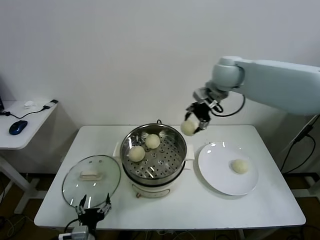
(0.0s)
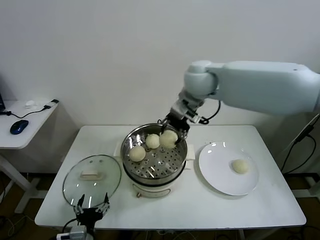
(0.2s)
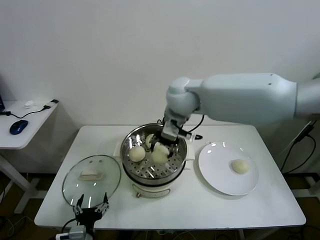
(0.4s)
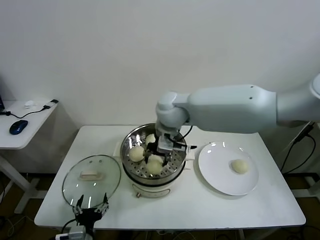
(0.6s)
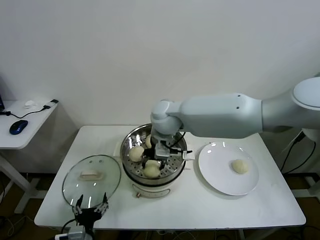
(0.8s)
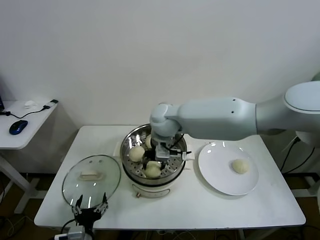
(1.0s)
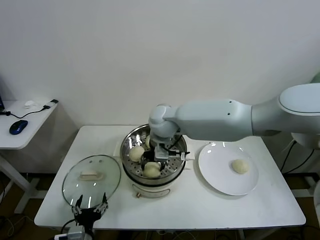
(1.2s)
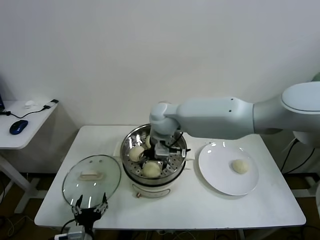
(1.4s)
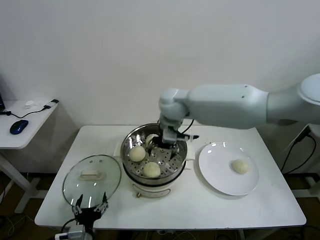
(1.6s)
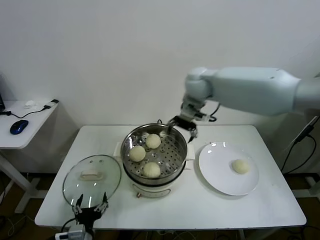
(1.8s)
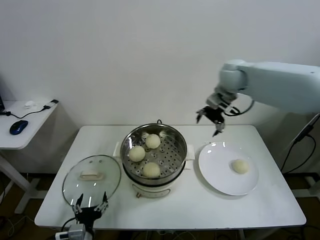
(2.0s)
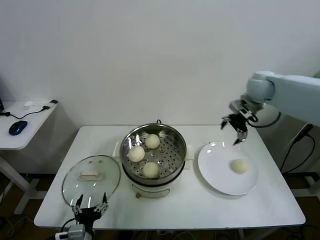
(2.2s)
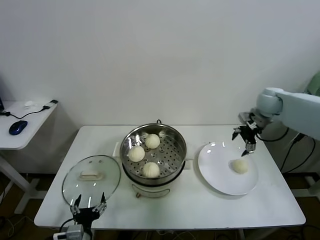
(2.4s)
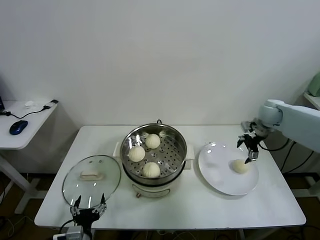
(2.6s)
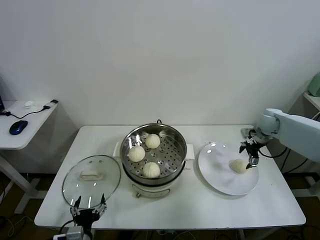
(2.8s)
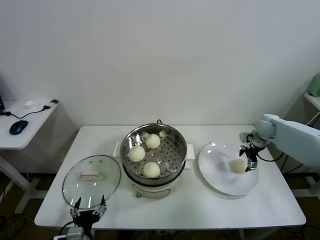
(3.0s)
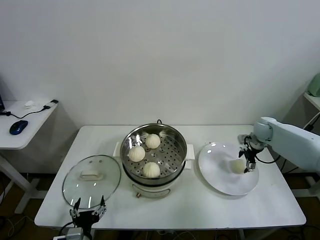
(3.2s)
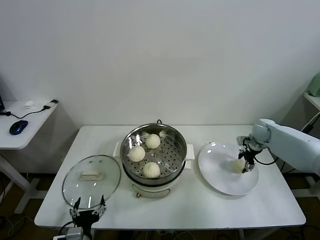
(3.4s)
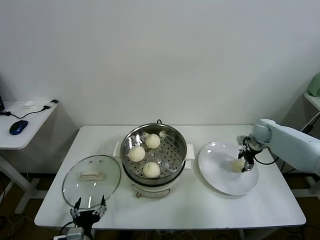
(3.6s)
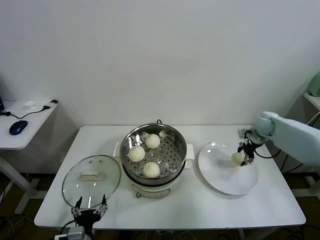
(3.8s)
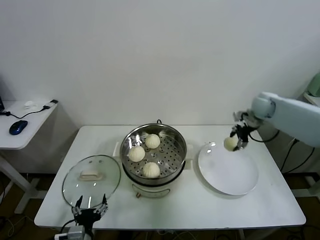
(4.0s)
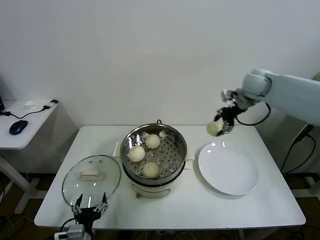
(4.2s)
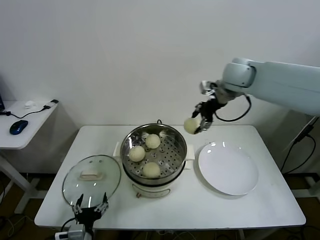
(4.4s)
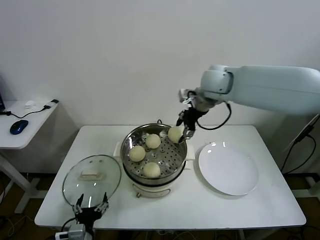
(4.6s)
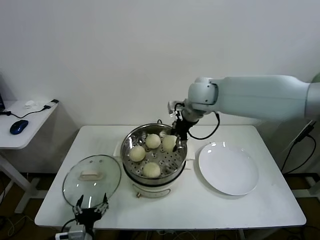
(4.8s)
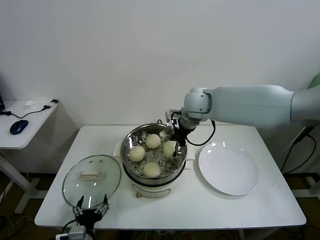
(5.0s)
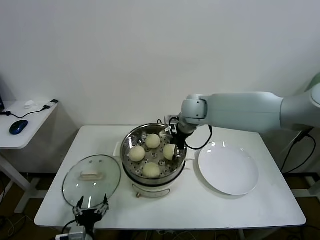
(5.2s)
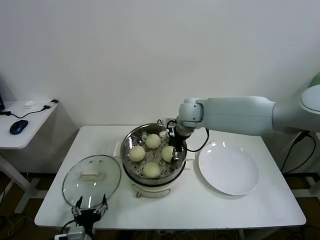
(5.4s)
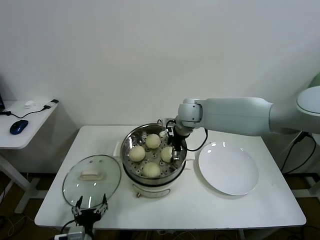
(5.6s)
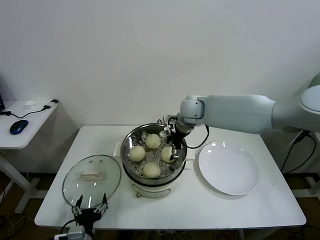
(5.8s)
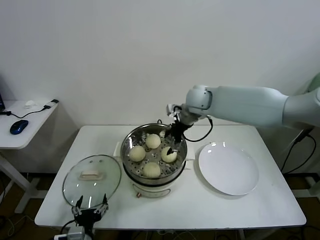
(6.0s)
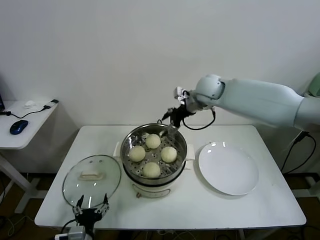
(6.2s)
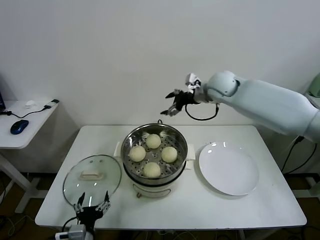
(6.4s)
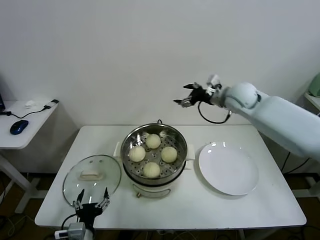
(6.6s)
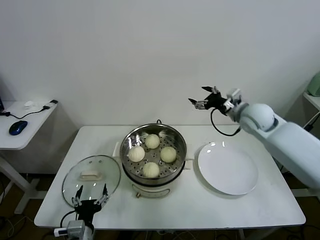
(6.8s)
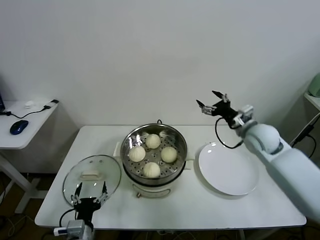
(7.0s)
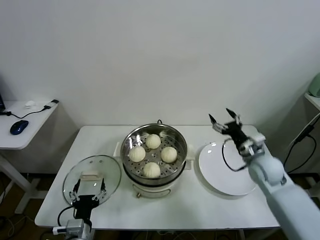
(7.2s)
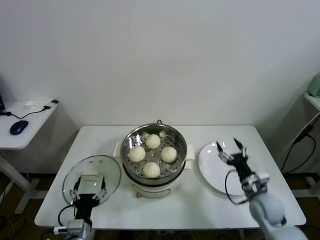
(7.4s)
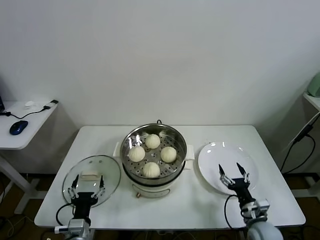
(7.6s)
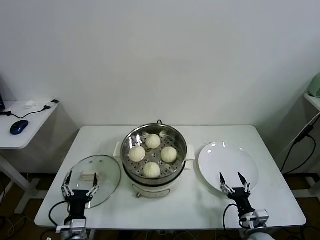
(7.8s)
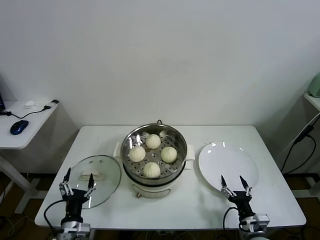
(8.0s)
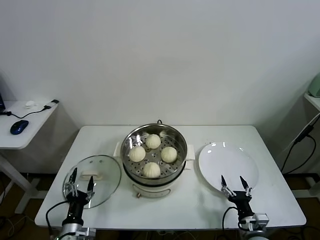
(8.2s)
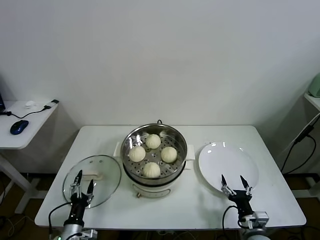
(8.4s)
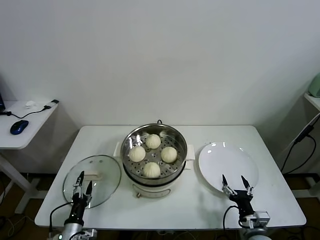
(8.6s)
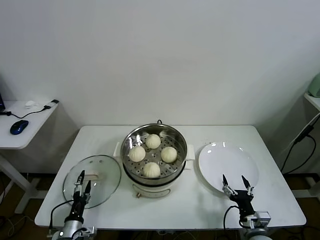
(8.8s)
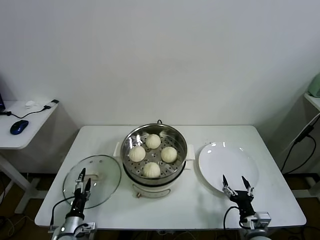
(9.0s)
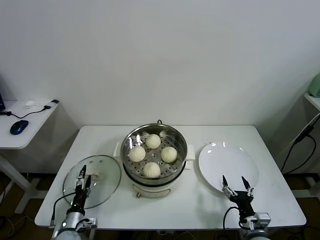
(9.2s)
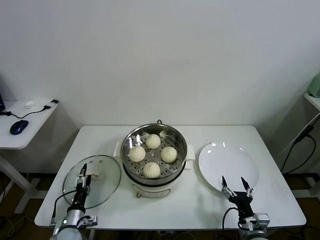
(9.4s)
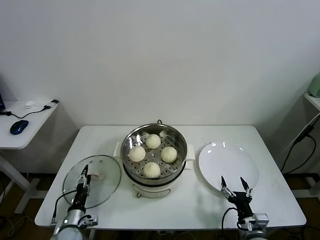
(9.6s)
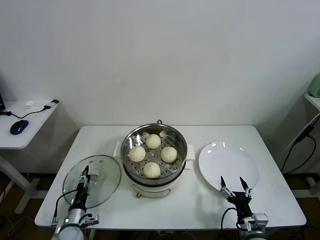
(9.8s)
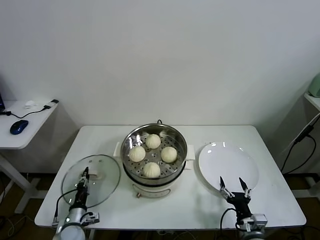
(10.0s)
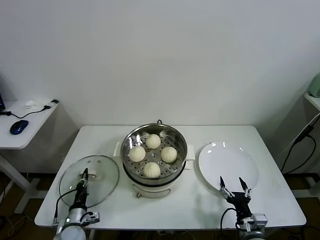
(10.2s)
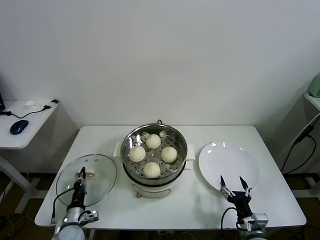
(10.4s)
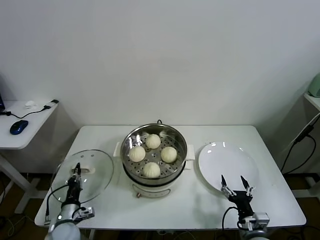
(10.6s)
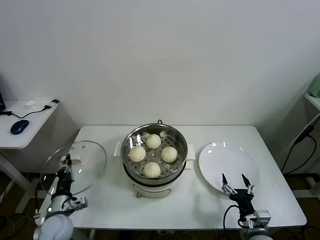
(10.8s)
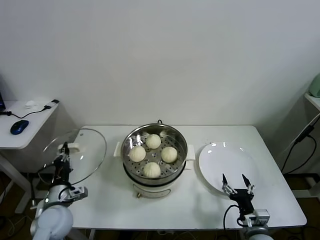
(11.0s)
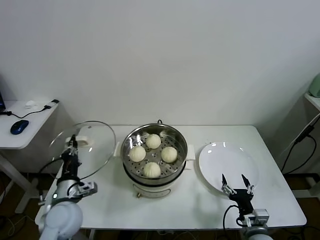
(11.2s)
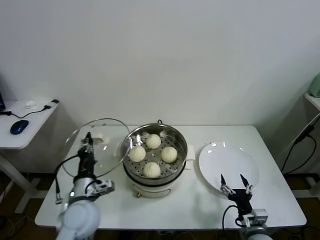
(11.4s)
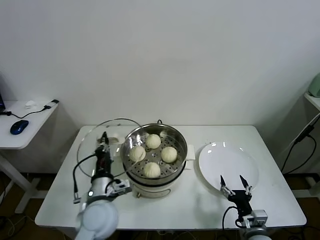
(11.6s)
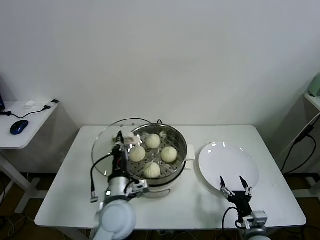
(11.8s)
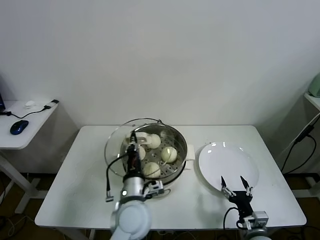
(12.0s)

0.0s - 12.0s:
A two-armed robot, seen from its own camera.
Task of the whole recording: take steamed baozi put them in steamer.
Step, 0.0s - 1.4s: Place the baozi on the steamer with right gripper.
Step, 1.6s - 3.6s: Grasp the baozi in the plate with right gripper.
Step, 3.8s - 5.8s: Place the baozi on the steamer with right gripper.
Step, 6.0s - 10.2s: Grasp the pot lid with left gripper.
0.0s - 1.6s: The right gripper goes some 15 cm to the left and downward, and opens its fingers.
1.6s - 3.0s: The right gripper travels to the right and downward by some 40 cm.
3.0s - 4.4s: The right gripper goes some 30 cm upward and to the left, and closes.
4.4s - 6.0s: The right gripper shifts about 15 cm to the left and downward, and opens up.
6.0s - 7.6s: The right gripper goes some 50 cm downward, backward and to the right.
7.6s - 9.0s: The left gripper shifts some 15 cm downward and to the left. The right gripper ends up some 5 cm from where it was.
9.0s - 10.4s: The left gripper closes its fingers.
10.4s - 12.0s: The left gripper shifts roughly 30 cm to the right and upward.

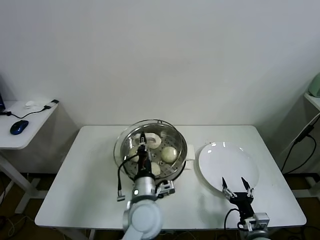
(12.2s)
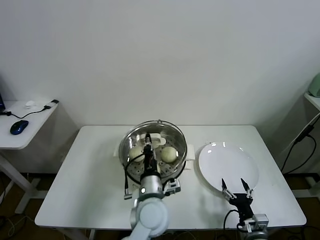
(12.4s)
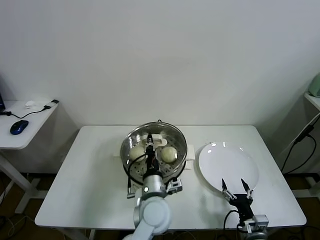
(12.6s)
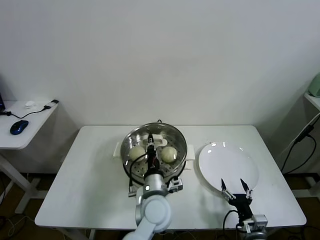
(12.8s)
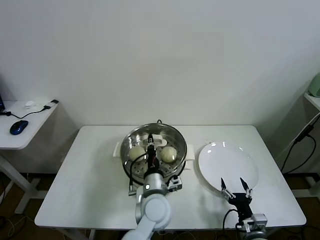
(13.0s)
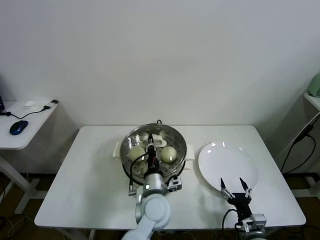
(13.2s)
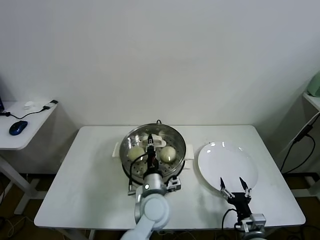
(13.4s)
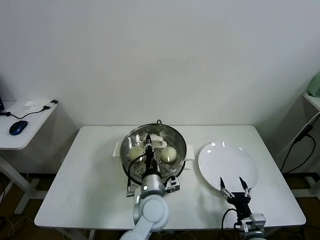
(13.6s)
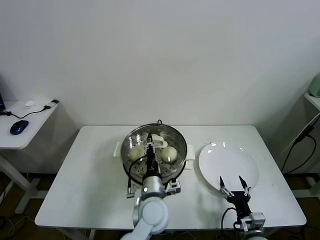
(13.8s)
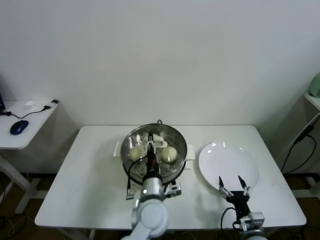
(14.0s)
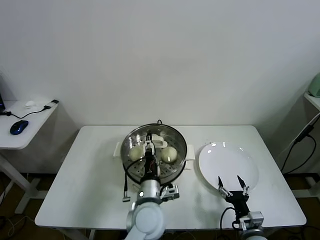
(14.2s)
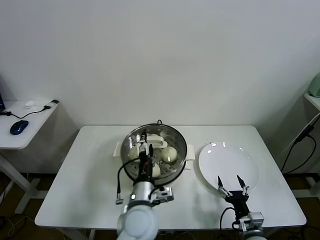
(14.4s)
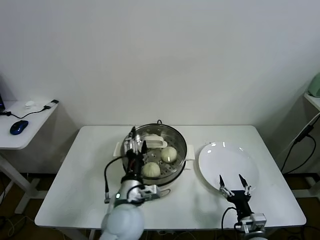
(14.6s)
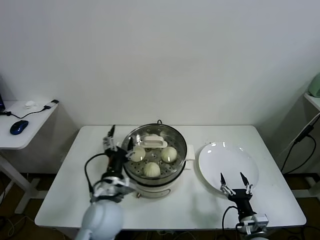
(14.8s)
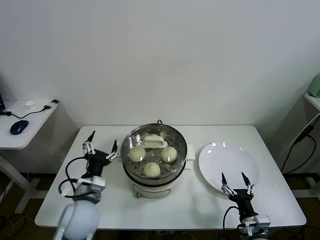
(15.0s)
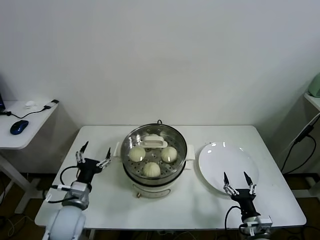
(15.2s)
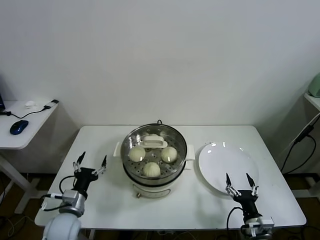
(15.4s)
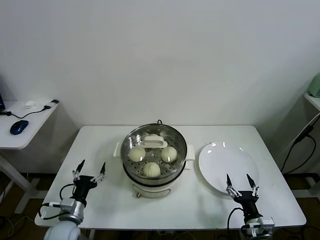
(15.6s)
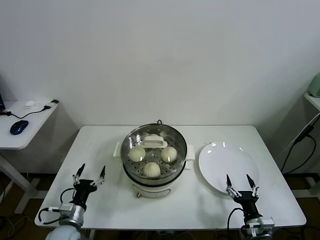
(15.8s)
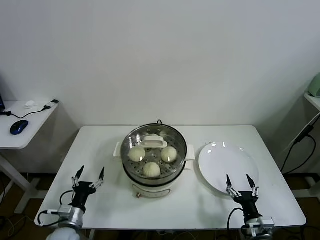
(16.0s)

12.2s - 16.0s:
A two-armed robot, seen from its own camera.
Task of the whole recording: take steamed baozi put them in steamer.
12.2s - 13.4s: The left gripper moves about 5 cm.
13.4s - 14.8s: The left gripper heads to the left and upward, covering approximately 10 cm, and opens.
14.8s - 16.0s: The left gripper is displaced to the left and downward by roughly 25 cm.

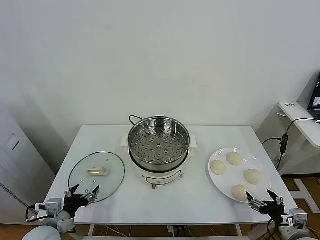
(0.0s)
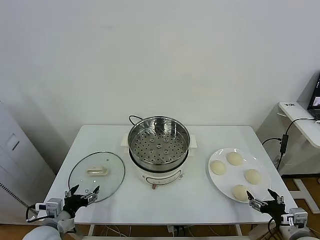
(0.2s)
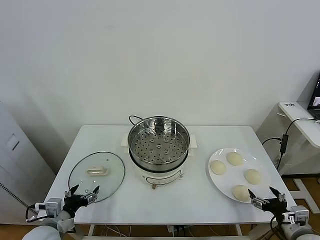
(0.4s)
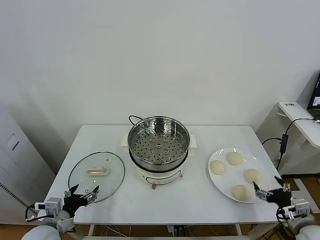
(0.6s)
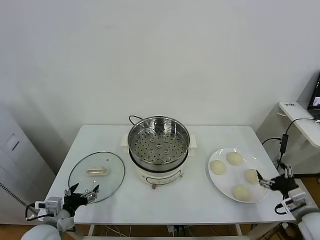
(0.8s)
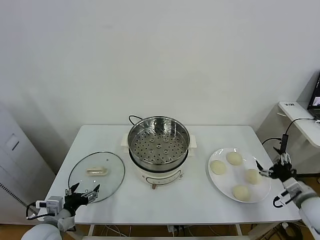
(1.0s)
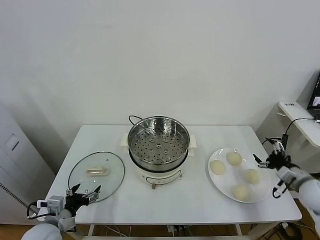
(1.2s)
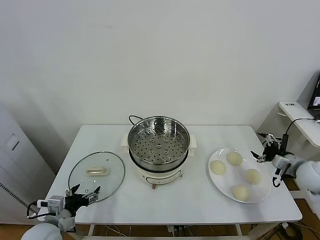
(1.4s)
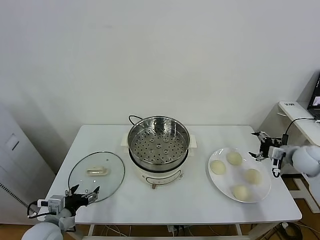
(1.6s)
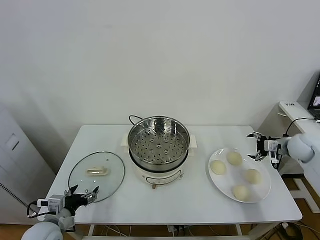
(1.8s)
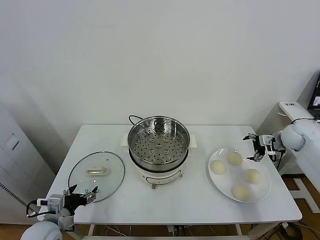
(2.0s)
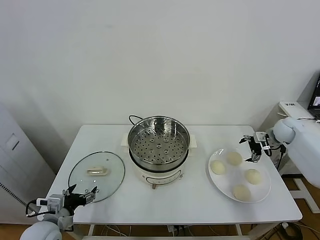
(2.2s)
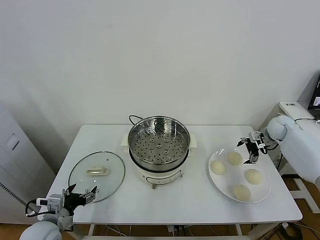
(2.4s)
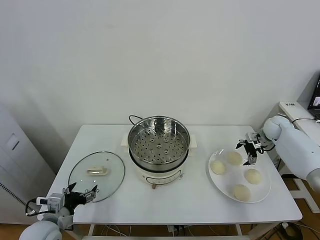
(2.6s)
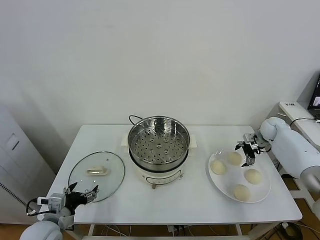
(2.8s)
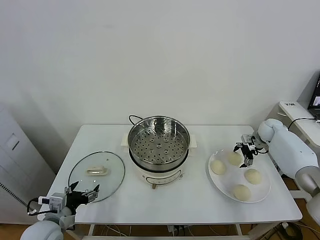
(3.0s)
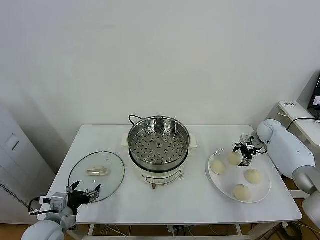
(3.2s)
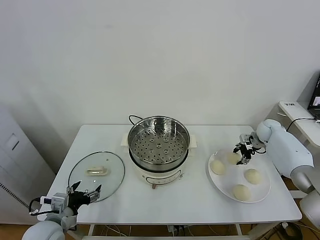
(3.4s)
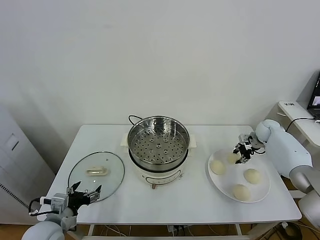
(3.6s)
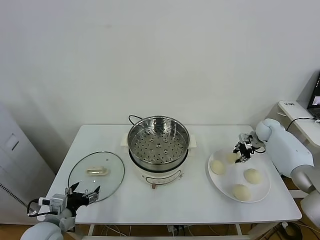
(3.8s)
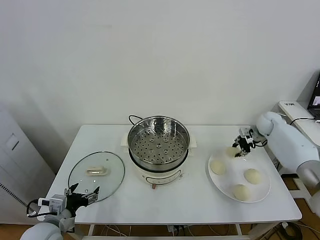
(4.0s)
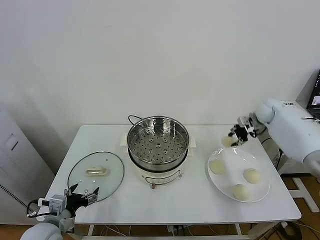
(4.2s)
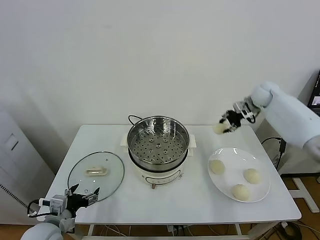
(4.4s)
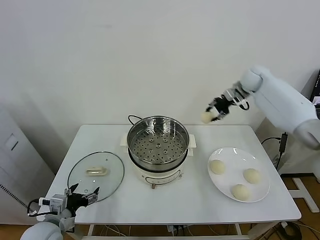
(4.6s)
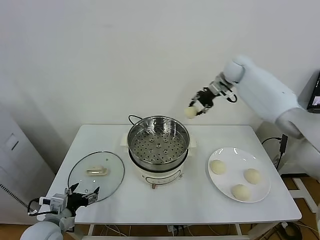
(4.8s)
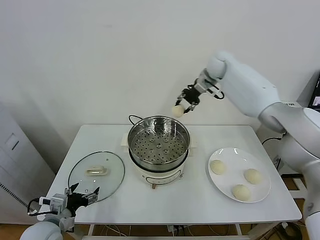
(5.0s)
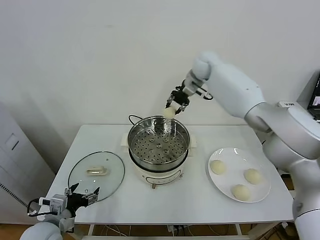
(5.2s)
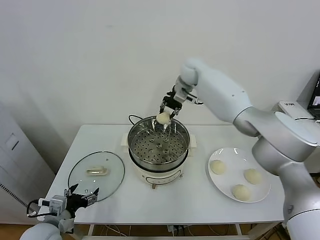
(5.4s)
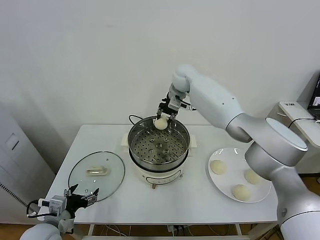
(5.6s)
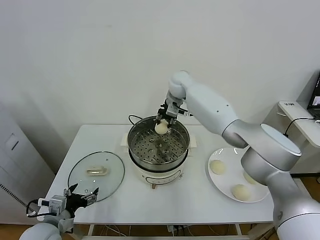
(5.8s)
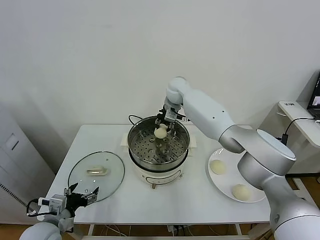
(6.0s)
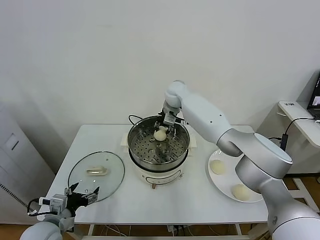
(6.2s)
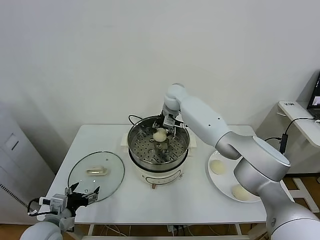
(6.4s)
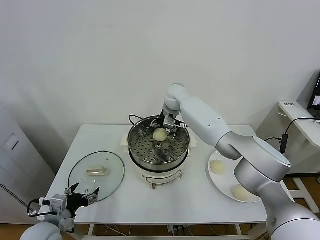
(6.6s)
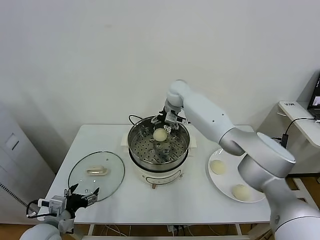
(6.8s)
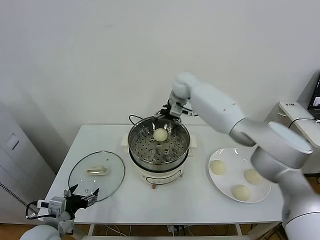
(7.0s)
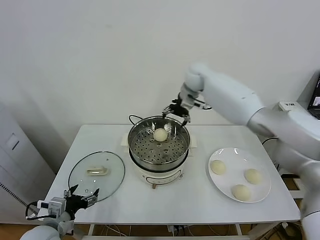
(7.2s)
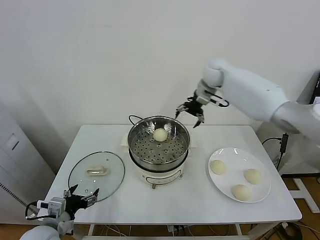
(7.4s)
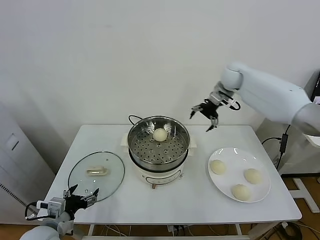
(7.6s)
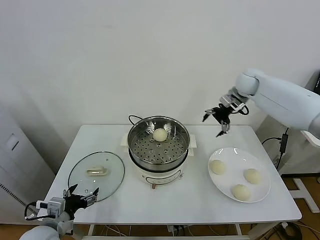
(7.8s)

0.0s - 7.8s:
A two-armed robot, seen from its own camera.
Task of the whole recording: take steamed baozi put them in steamer.
Step, 0.0s - 3.2s: Grasp the baozi in the plate with right gripper.
Step, 3.4s - 6.6s: Place the baozi on the steamer with right gripper.
1.6s - 3.2s: The right gripper shifts some 15 cm forward.
3.2s - 4.6s: The right gripper heads upward and to the left, covering about 25 cm, and closes up.
4.6s - 6.2s: The right gripper goes some 30 cm to the left.
6.2s - 7.8s: The right gripper travels to the right by approximately 25 cm, and opens.
